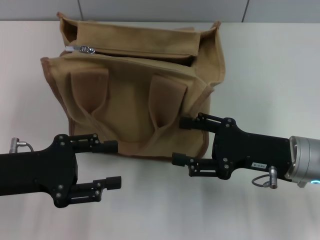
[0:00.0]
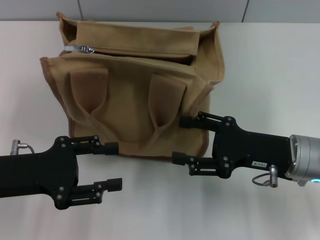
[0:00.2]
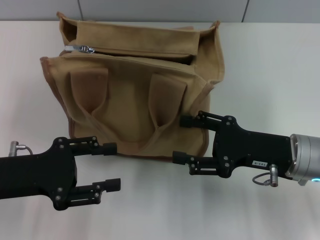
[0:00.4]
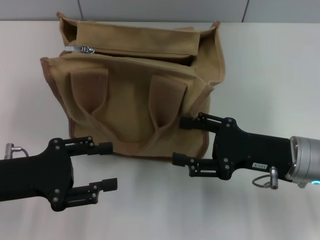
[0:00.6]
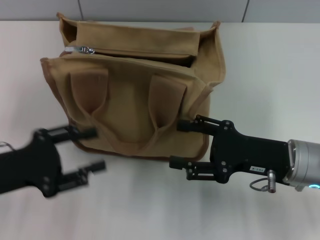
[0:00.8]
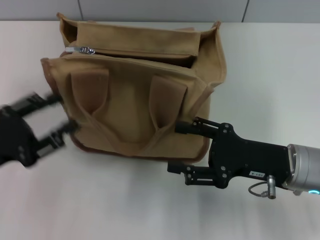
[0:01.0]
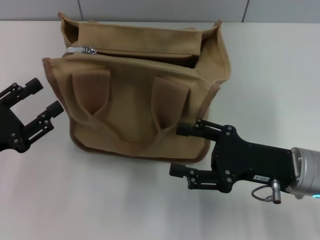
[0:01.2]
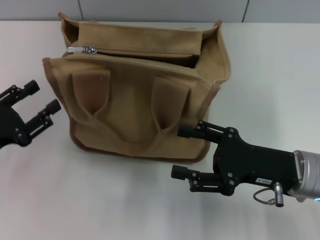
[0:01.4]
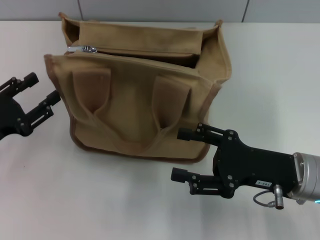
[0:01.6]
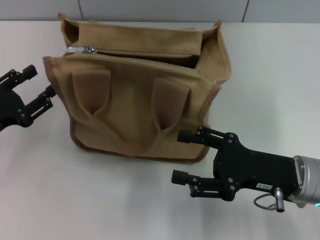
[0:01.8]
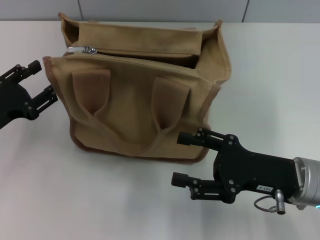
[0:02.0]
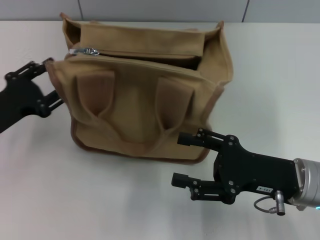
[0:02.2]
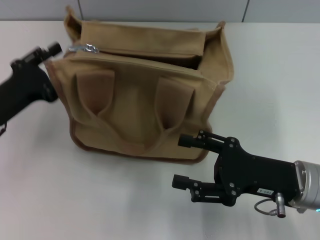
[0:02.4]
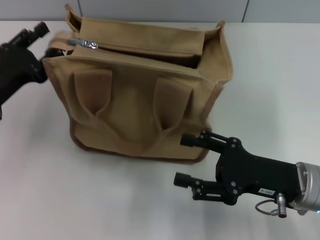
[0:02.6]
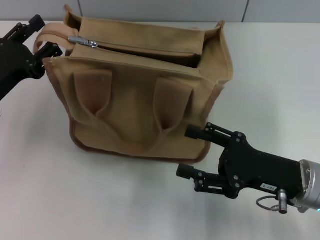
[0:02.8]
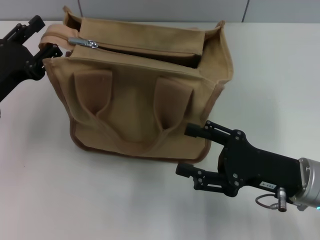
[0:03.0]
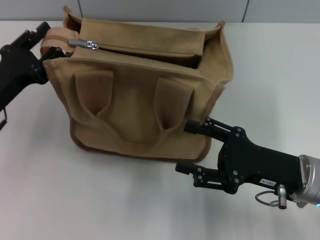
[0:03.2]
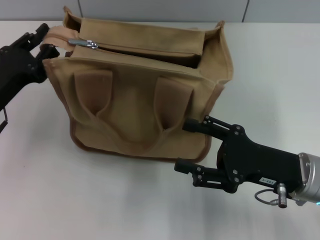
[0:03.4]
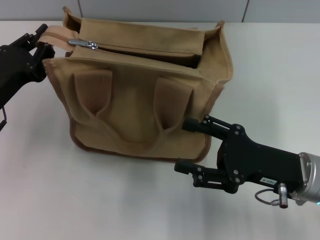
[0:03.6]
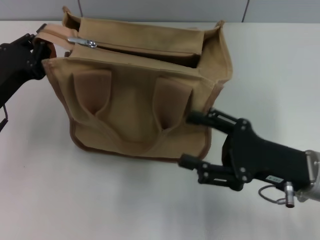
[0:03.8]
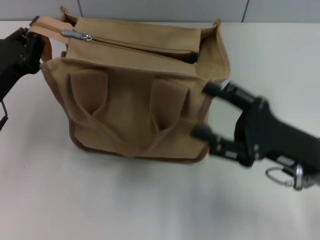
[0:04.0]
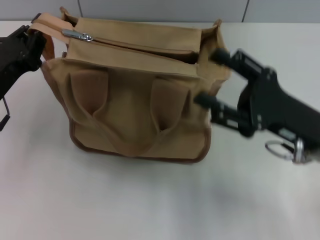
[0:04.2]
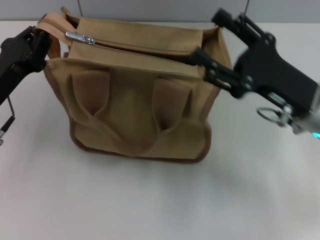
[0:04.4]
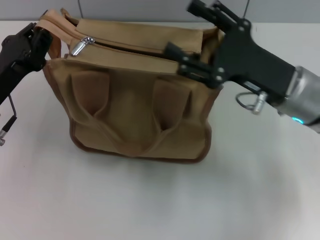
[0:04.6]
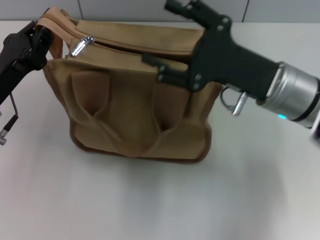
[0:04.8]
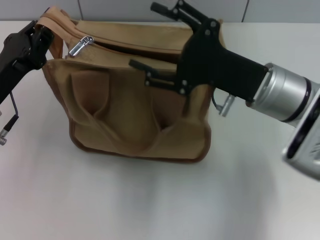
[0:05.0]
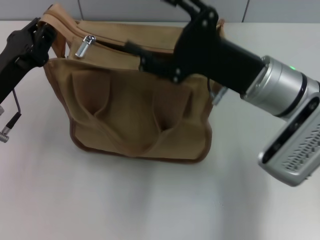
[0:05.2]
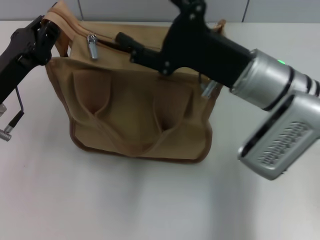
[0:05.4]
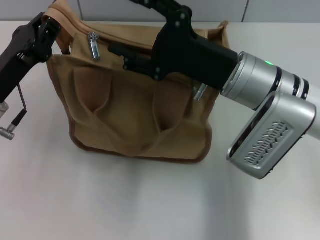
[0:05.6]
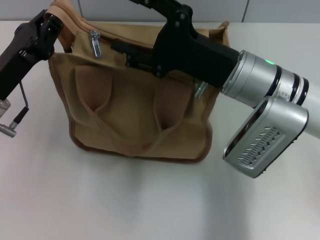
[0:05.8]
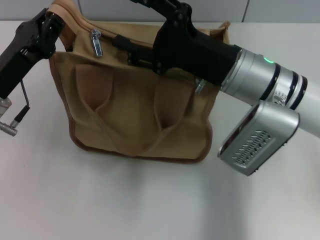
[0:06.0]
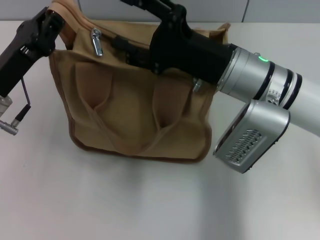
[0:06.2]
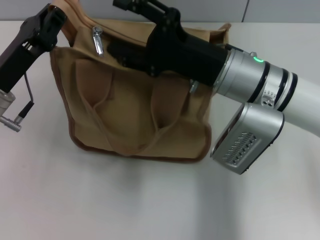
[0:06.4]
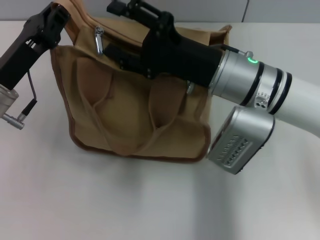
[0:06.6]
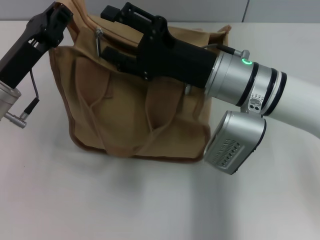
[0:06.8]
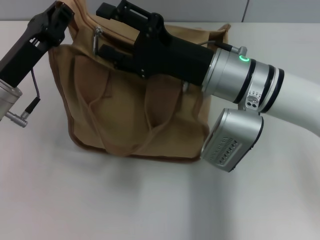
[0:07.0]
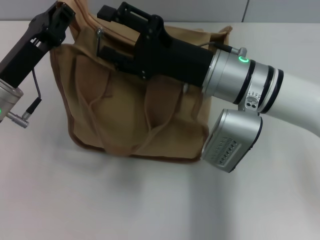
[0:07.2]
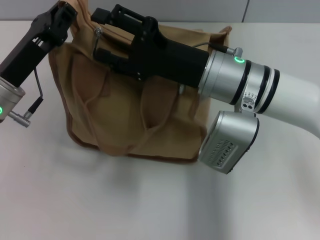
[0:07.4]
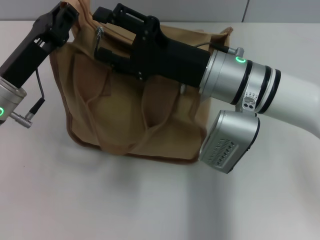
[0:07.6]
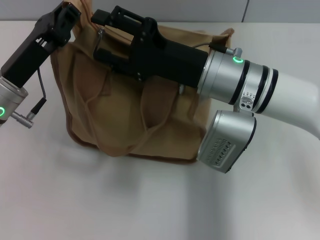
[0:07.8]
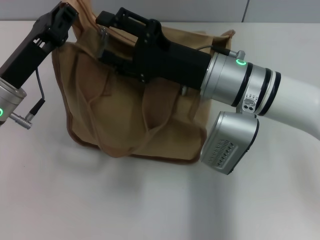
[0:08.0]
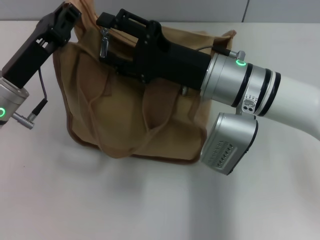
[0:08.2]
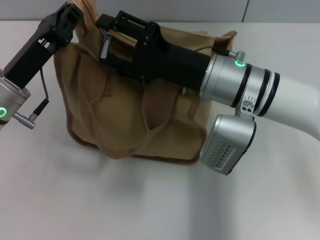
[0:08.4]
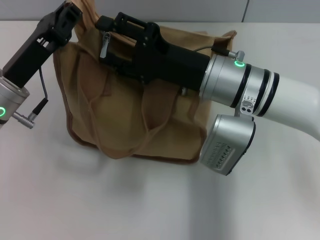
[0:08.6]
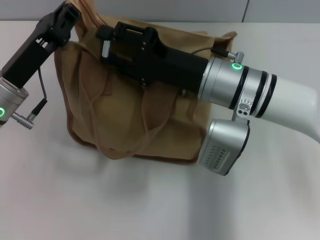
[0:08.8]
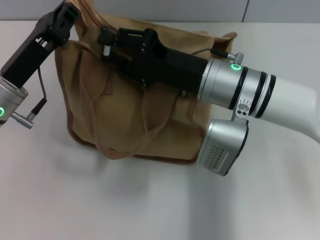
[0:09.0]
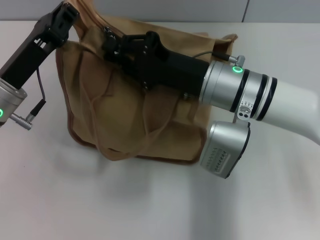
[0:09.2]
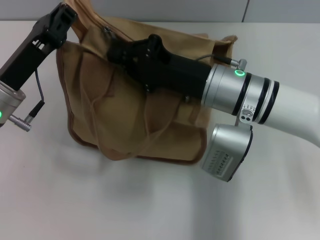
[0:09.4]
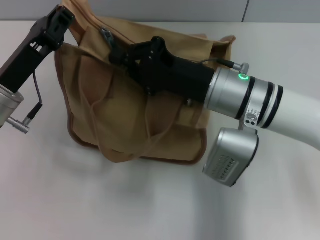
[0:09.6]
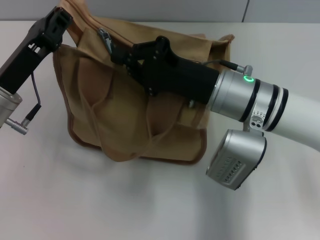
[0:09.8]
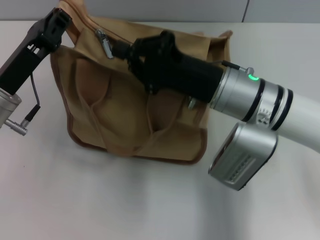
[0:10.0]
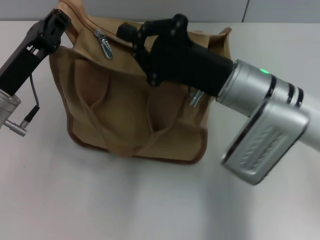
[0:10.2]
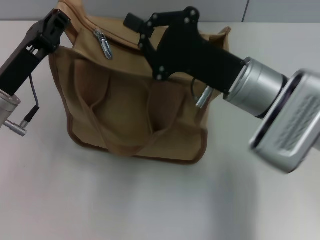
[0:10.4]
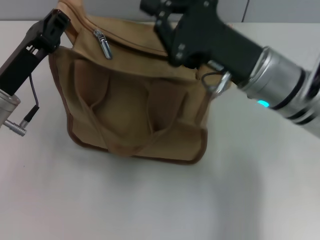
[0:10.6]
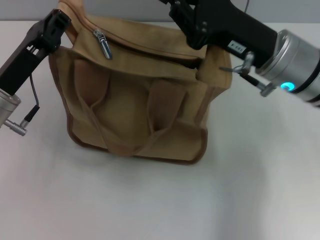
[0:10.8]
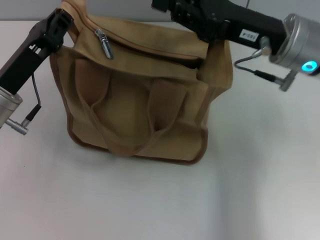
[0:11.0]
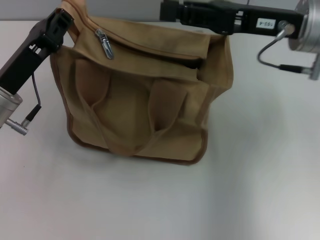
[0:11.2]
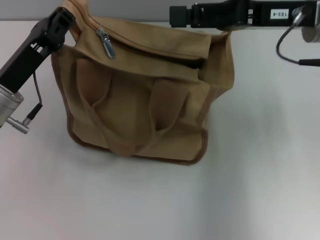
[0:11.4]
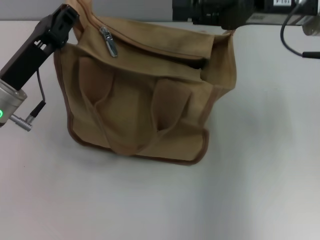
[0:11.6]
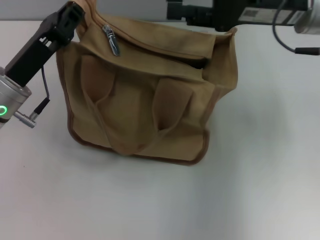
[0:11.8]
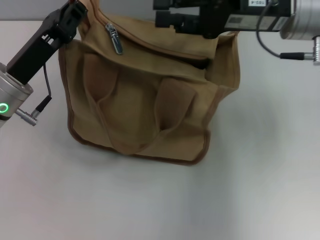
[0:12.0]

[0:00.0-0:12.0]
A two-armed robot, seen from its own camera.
0.0 to 1.6 s: The left gripper changes place by roughly 5 cm.
1.6 to 3.0 s: The left gripper moves forward, roughly 5 cm.
3.0 to 4.4 s: The left gripper closes up. The right gripper is displaced forward and upward by roughly 10 cm.
4.4 to 6.0 s: The right gripper travels to the left by about 10 cm.
7.6 to 9.0 s: There are only small adjustments of the grippers.
9.0 to 10.4 s: The right gripper closes its fingers.
10.4 to 12.0 s: The right gripper moves upward, forward and to the right, approximately 10 cm, and opens up.

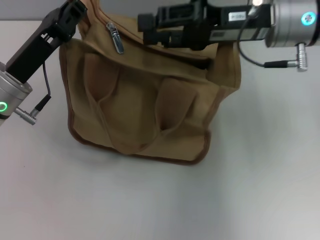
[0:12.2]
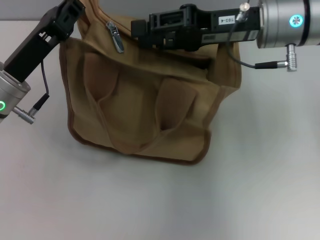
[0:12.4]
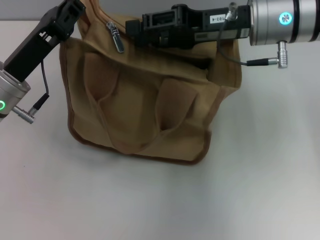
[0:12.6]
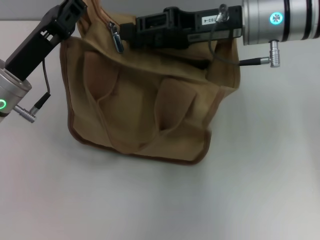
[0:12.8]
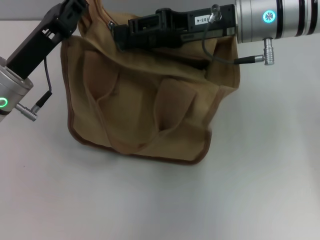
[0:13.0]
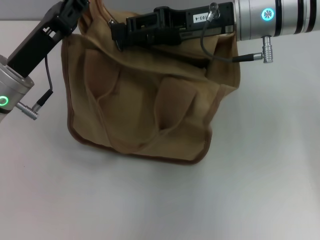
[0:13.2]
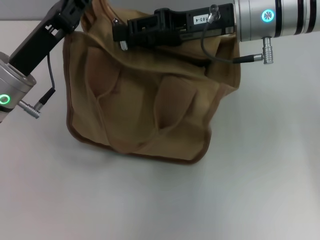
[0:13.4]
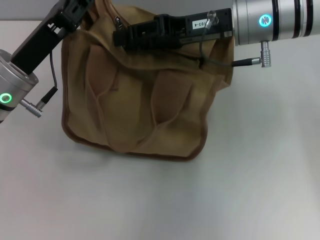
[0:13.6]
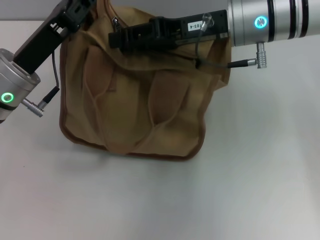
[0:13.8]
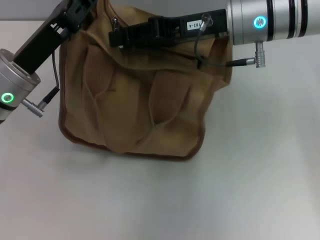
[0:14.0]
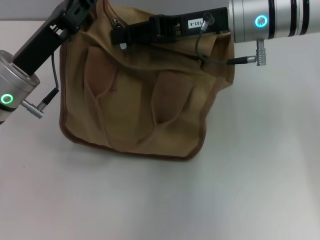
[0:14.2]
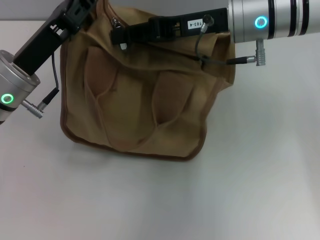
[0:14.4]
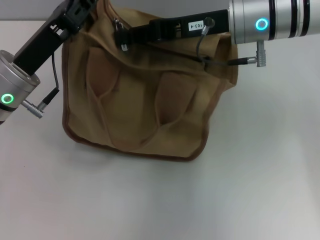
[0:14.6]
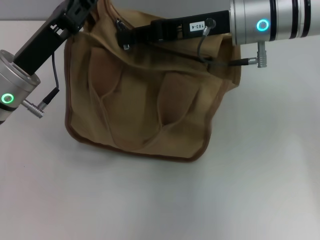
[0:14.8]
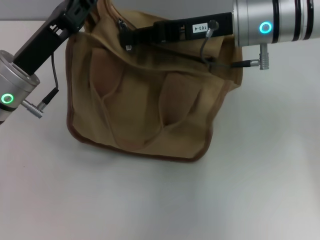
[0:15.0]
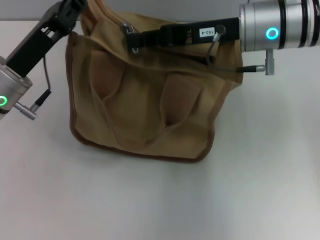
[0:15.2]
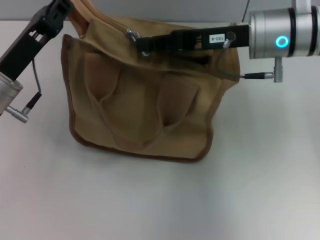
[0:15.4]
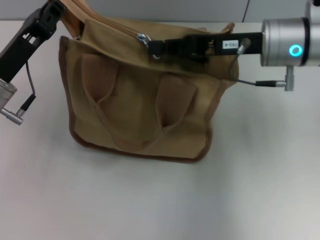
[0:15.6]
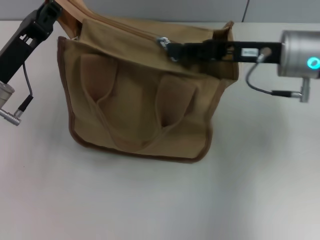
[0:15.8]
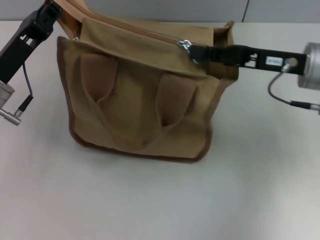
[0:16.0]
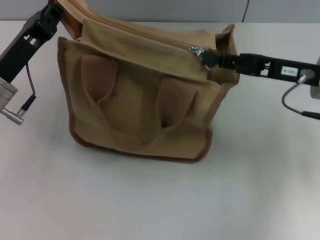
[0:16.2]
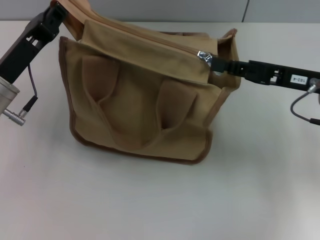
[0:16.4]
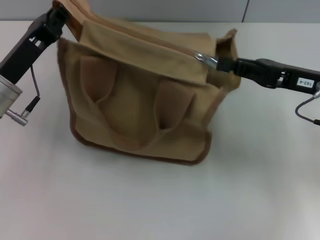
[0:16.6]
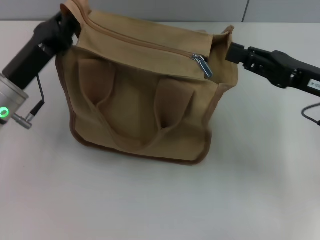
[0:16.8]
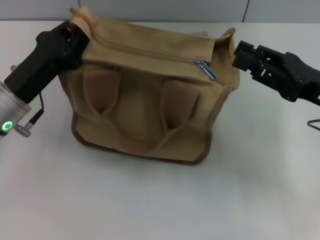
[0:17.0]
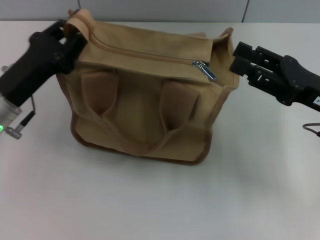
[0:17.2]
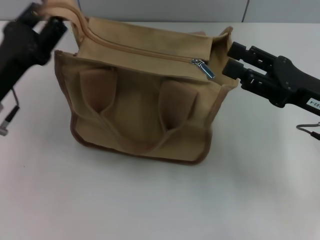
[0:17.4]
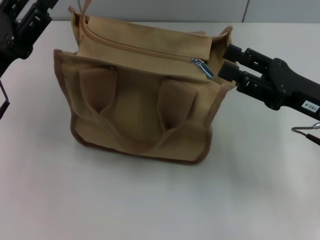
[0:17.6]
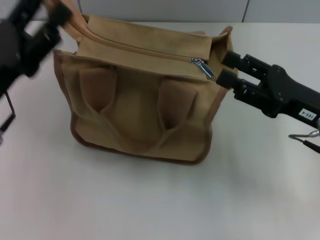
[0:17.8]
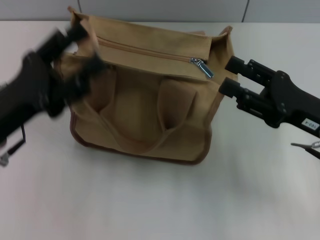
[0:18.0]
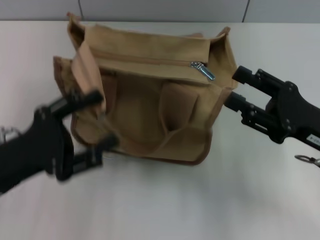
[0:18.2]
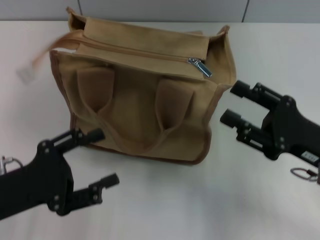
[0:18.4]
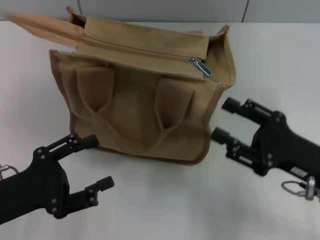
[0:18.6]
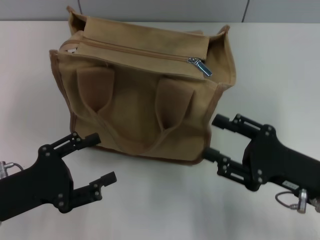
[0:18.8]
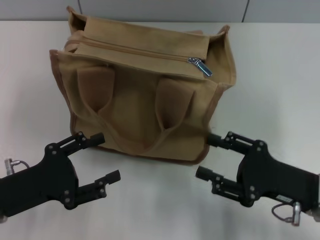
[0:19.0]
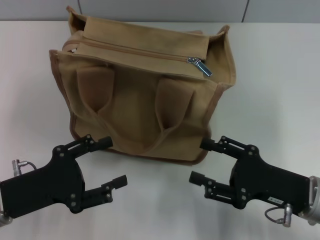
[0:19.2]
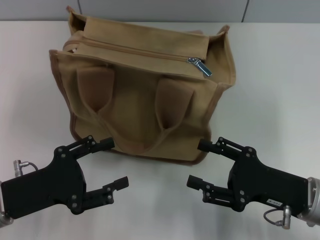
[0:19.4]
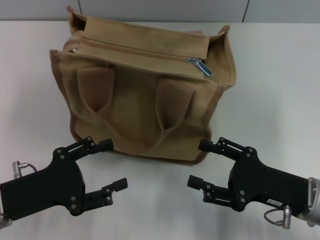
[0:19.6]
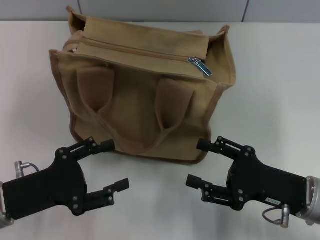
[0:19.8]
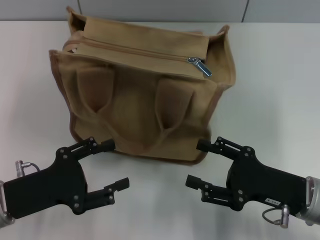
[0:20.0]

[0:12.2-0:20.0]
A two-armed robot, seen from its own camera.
Step, 12.2 to 16.6 s: Pull up the zipper with your right hand.
Step, 16.8 to 17.4 s: Grab the zipper with your left hand.
13.8 to 15.4 s: The right gripper closes.
15.4 to 16.8 s: The right gripper moves to the right, backward and downward, roughly 15 cm.
16.8 to 18.4 s: The right gripper shifts roughly 10 cm backward and downward, and opens up. The left gripper goes roughly 10 cm backward, and opens its fingers.
18.4 to 20.0 s: The right gripper shifts by about 5 cm.

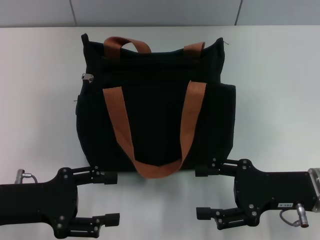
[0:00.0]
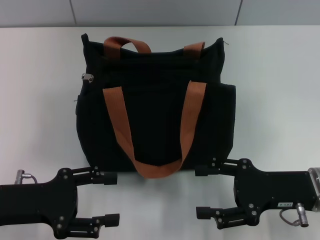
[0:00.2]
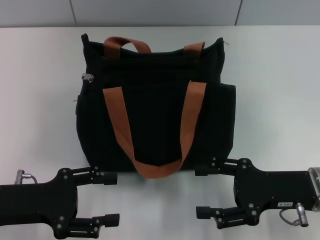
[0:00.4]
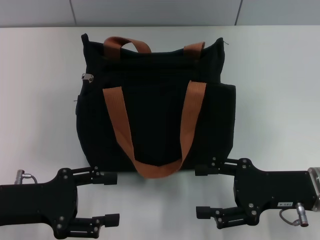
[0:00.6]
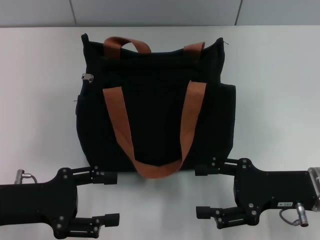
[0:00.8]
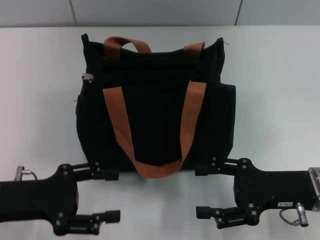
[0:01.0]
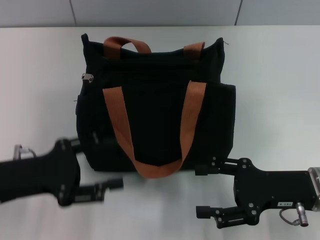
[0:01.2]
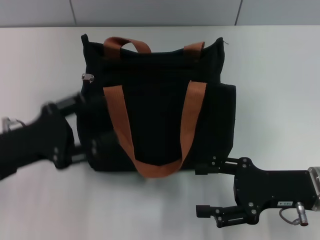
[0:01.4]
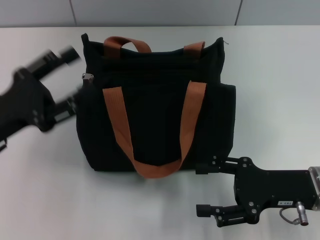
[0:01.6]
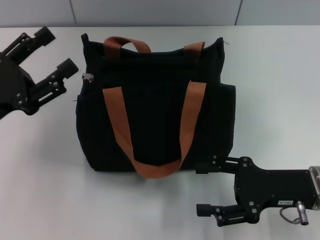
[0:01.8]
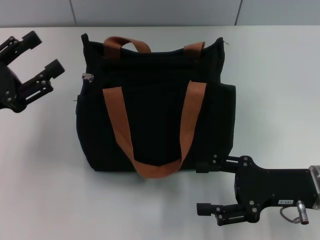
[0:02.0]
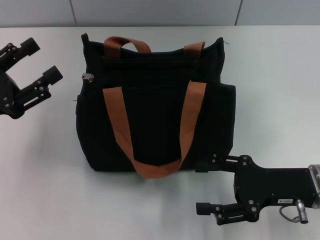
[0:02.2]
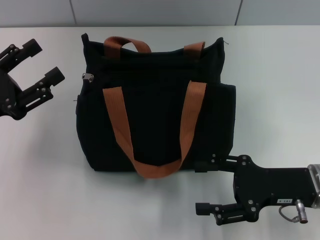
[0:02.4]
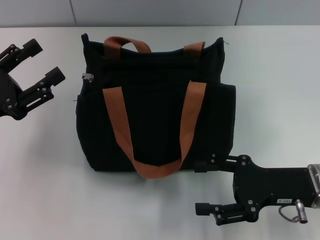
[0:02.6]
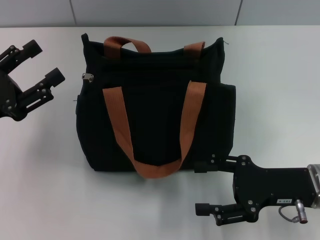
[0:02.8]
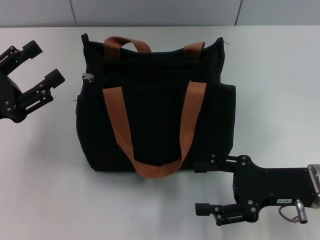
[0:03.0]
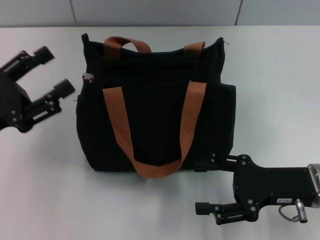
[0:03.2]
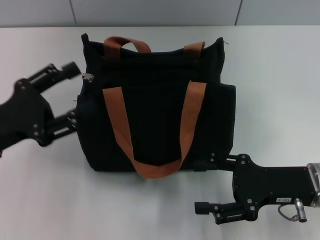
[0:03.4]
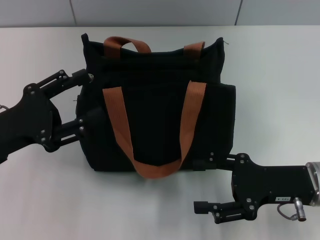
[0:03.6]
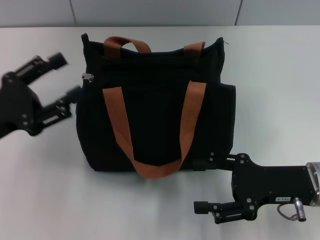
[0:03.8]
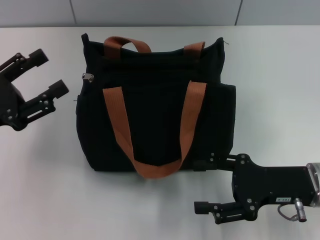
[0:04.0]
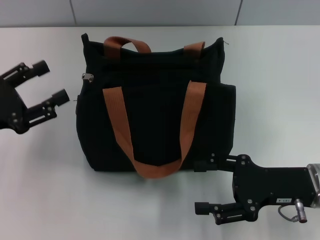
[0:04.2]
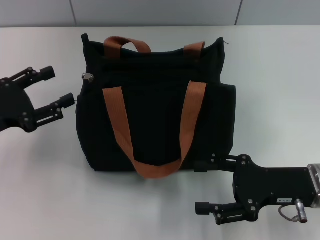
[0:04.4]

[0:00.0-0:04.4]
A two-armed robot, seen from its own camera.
1.4 to 3.0 s: The grippers stay close to where they were, moving slightly.
3.0 to 4.4 s: The grippers make only small movements.
